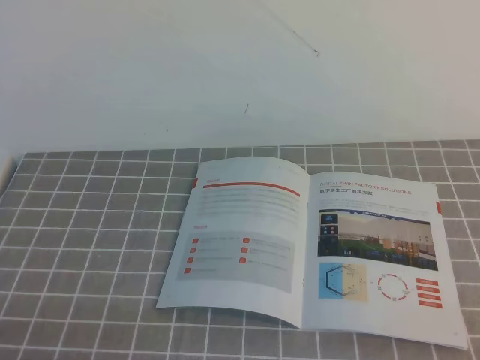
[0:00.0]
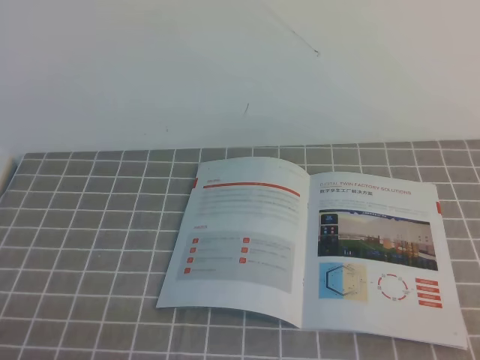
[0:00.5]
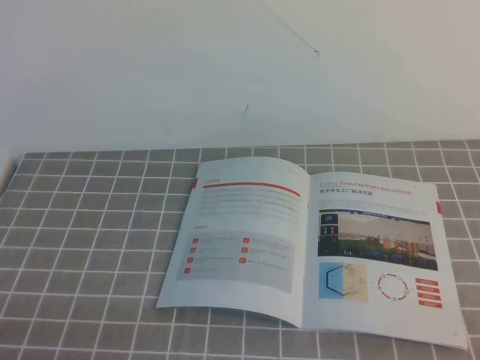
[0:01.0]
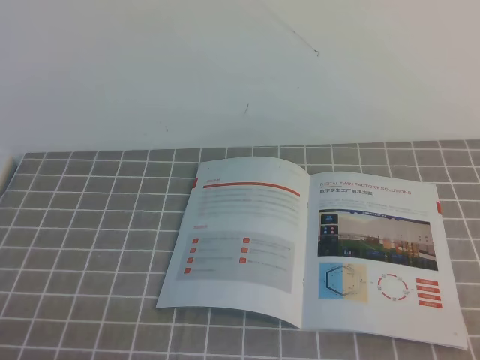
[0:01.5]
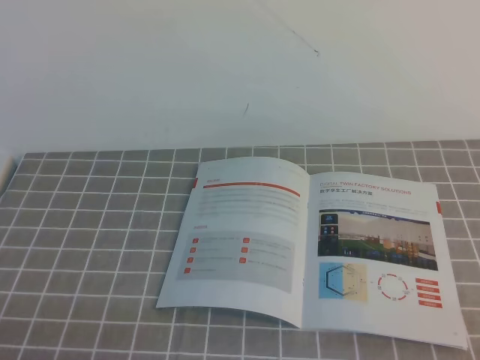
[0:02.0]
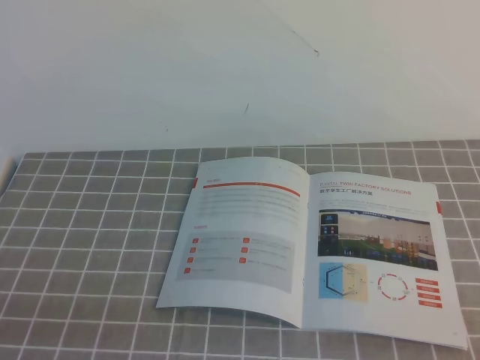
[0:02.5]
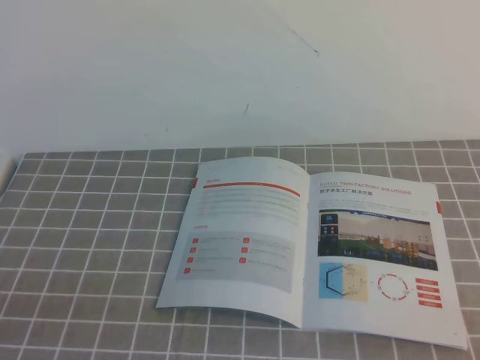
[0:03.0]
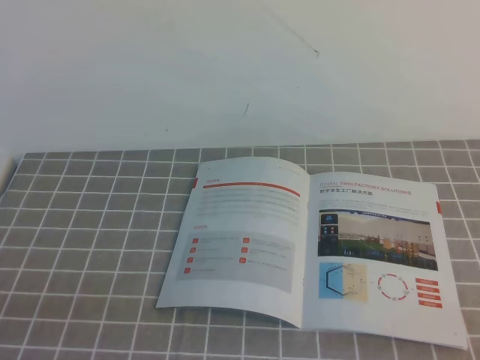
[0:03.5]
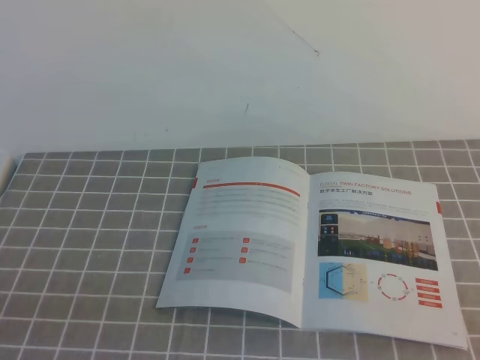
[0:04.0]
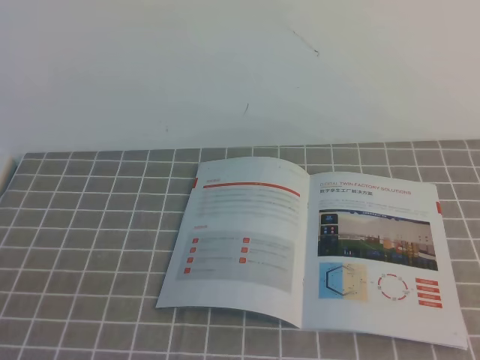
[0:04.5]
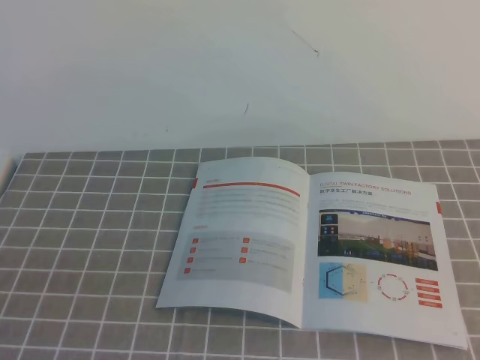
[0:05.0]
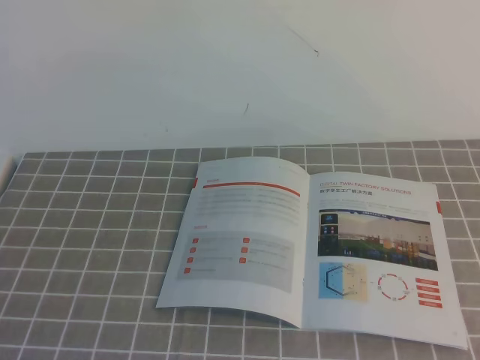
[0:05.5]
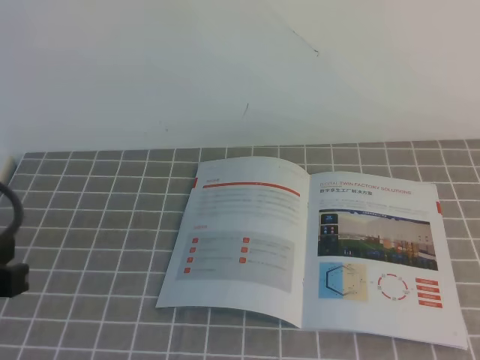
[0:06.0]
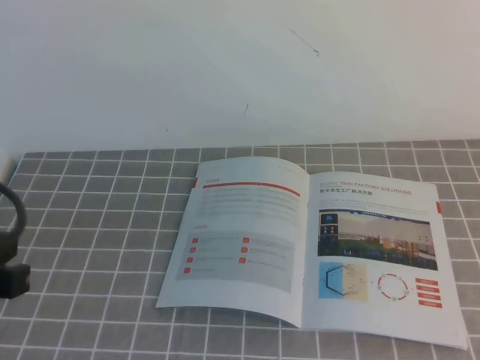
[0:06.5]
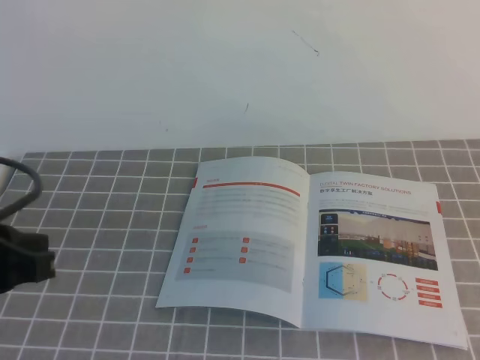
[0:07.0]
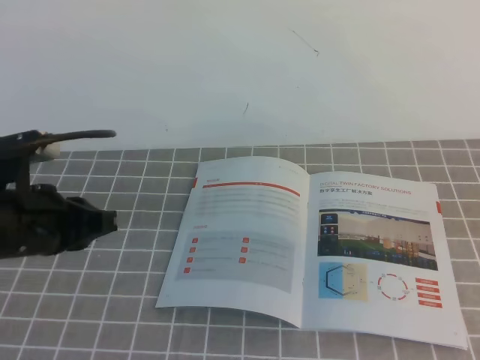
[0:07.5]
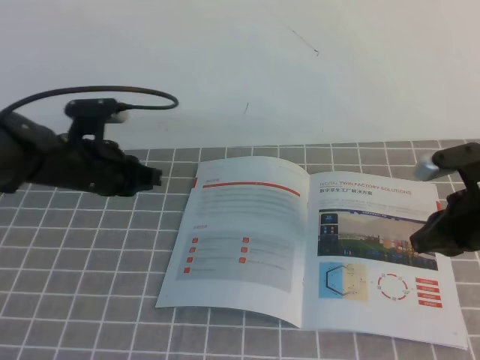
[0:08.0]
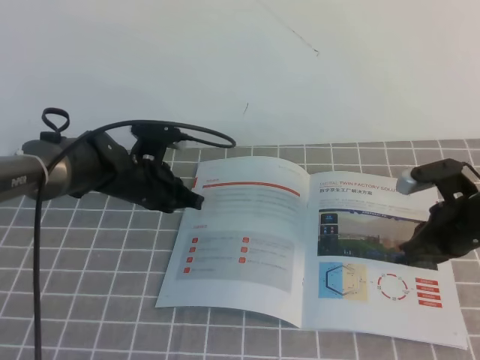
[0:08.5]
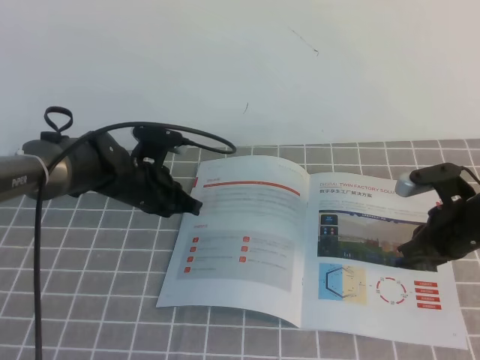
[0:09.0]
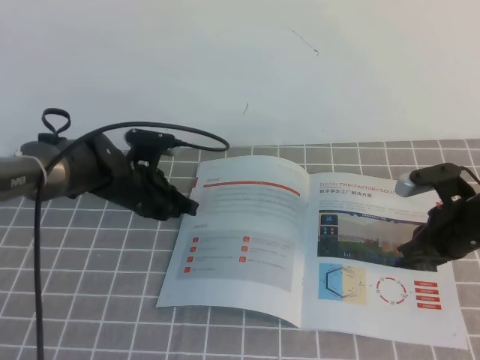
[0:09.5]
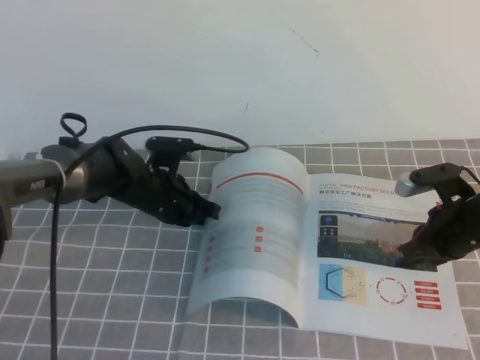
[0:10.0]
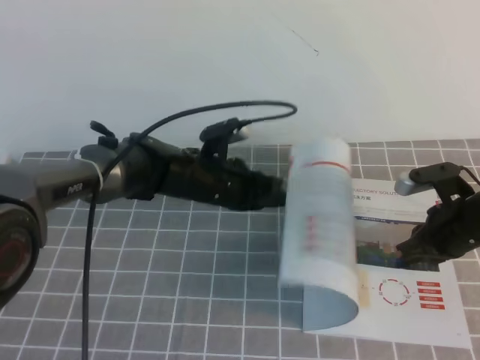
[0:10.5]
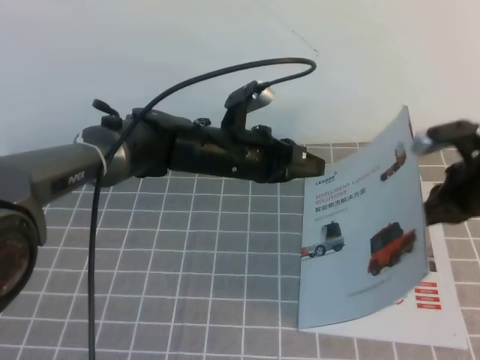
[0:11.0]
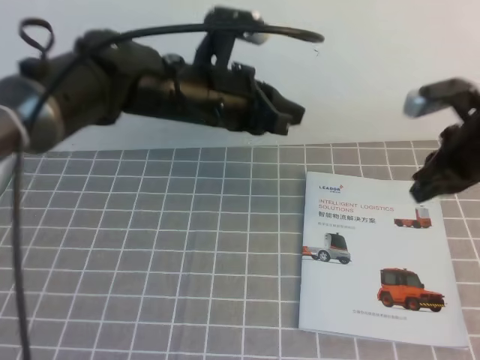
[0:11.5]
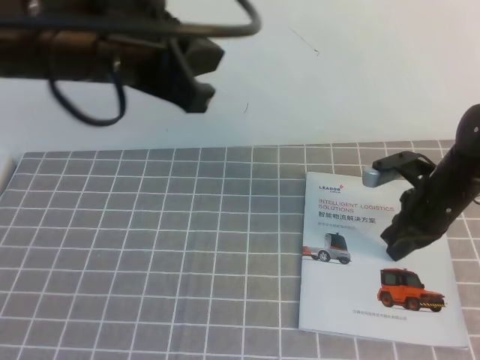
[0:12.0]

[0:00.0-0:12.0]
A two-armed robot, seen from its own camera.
Task of the whole recording: on the grey tablecloth, hold the book with one hand and close it with the other.
0:00.0 to 0:02.0: Neither gripper changes place.
0:04.0 to 0:06.0: The left gripper moves forward and upward, approximately 15 cm.
0:06.0 to 0:08.0: The left gripper heads forward and downward, covering roughly 25 cm. The right gripper is displaced downward and forward by about 25 cm.
0:08.0 to 0:10.0: The right gripper is displaced downward by some 5 cm. Meanwhile the left gripper shifts approximately 10 cm to the right and downward.
0:10.0 to 0:12.0: The left gripper travels upward and backward by approximately 30 cm, while the right gripper reaches some 10 cm upward, then returns.

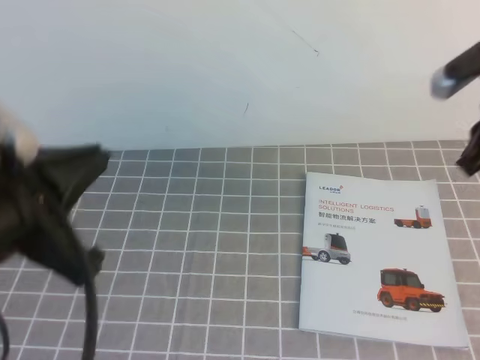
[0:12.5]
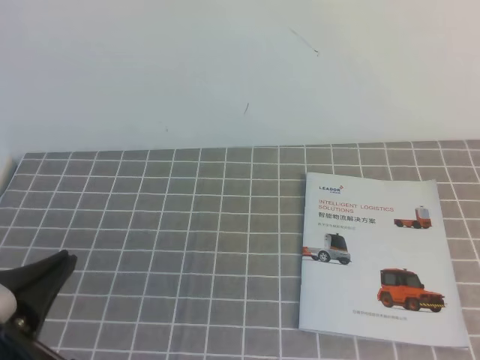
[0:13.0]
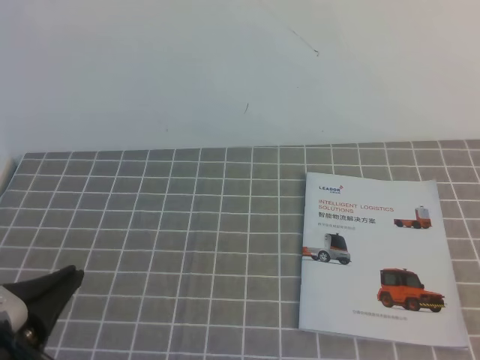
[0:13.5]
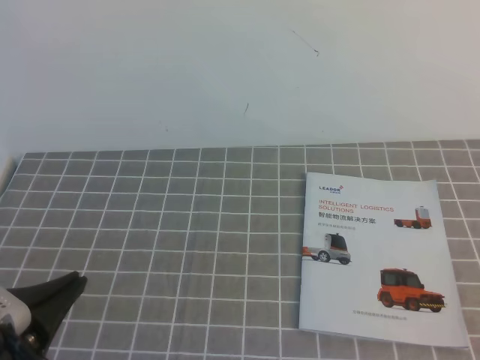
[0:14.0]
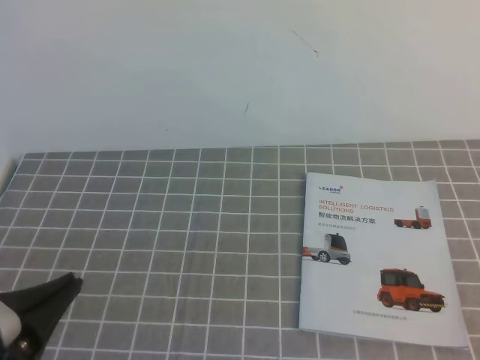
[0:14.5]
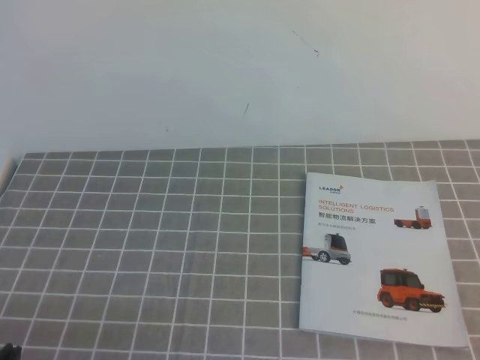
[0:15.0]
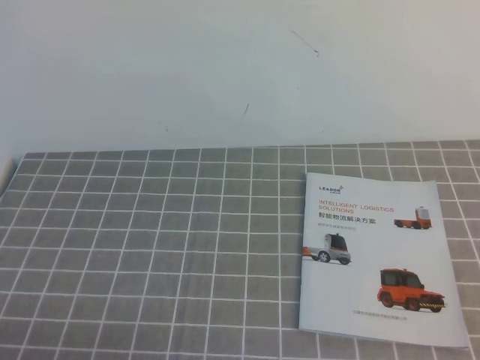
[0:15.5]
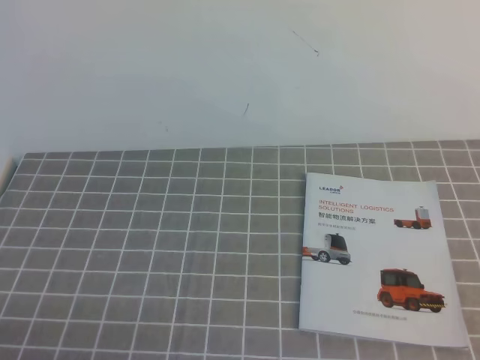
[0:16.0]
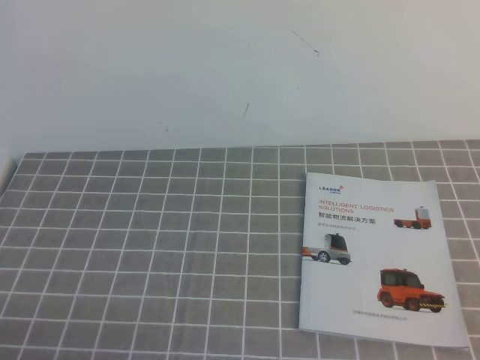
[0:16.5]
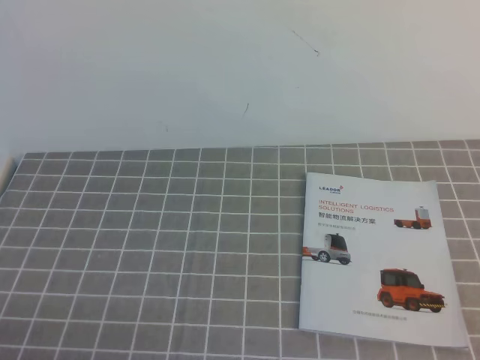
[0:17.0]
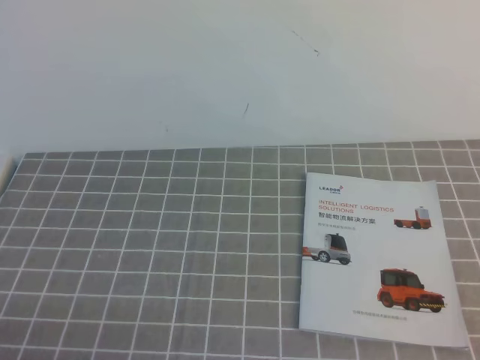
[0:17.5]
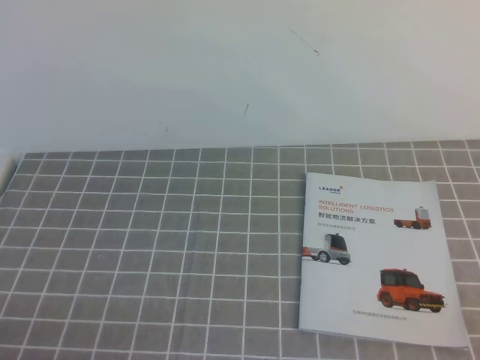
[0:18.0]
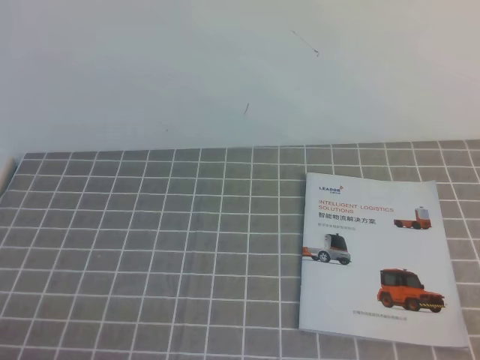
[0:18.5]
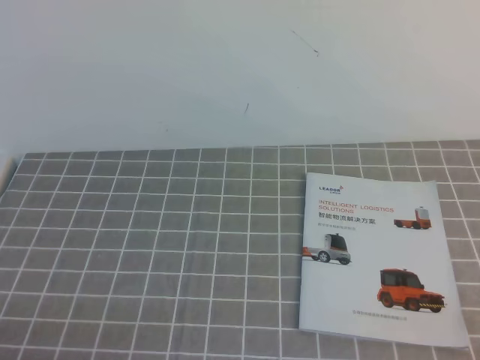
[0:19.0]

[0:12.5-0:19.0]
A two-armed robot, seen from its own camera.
Task of the whole recording: on the grey tablecloth, hold the book with one hand and close it with the other.
Step, 0:12.5 to 0:19.0: Close the open book.
0:12.5 to 0:14.5: The right gripper shifts about 30 cm backward. The left gripper shifts some 10 cm downward and backward.
0:14.5 to 0:17.0: The left gripper moves downward and backward, roughly 10 cm.
